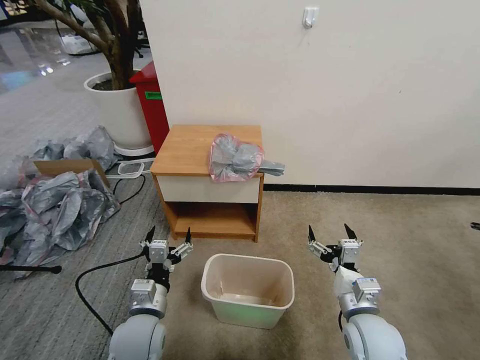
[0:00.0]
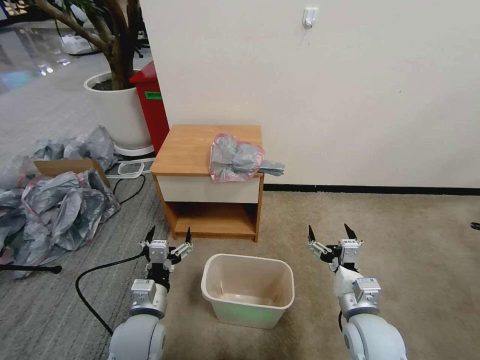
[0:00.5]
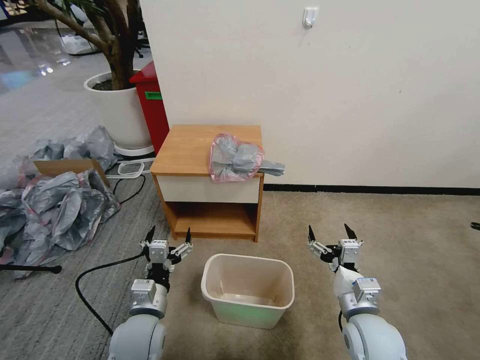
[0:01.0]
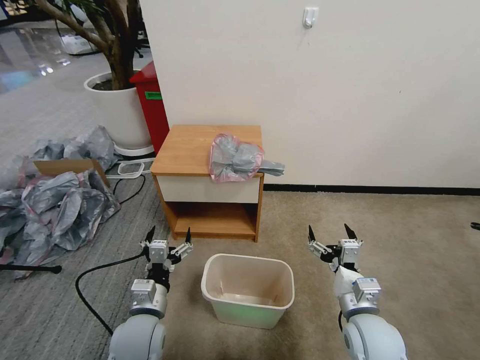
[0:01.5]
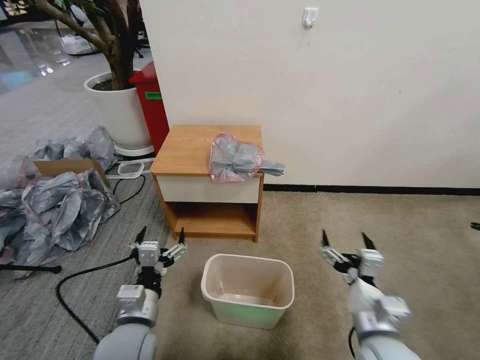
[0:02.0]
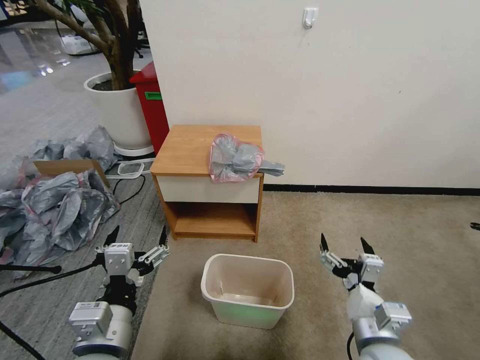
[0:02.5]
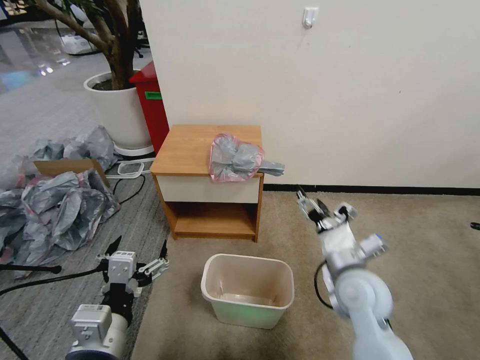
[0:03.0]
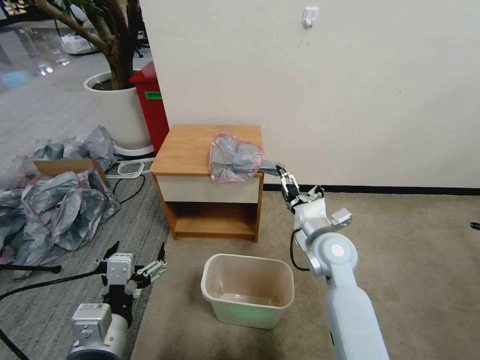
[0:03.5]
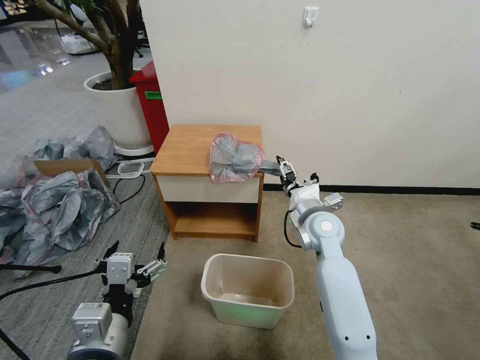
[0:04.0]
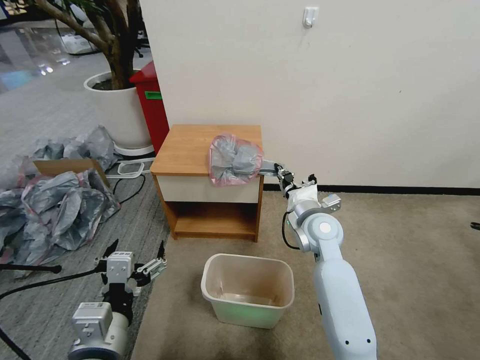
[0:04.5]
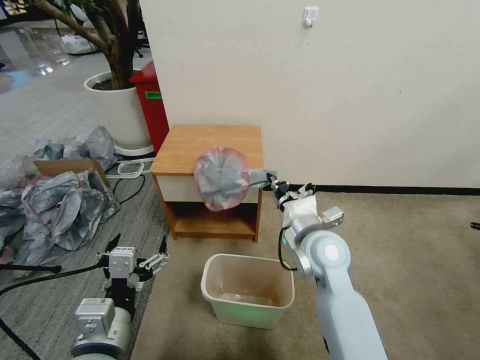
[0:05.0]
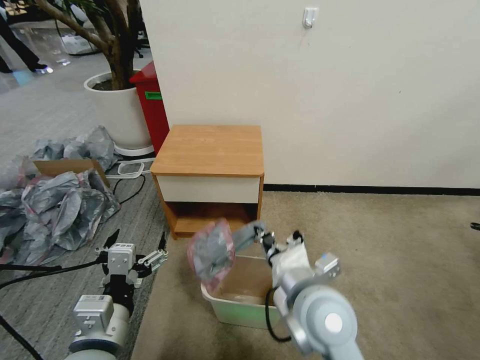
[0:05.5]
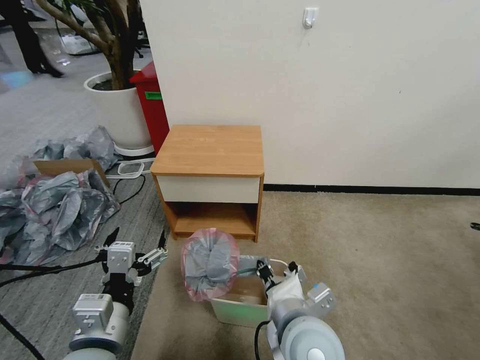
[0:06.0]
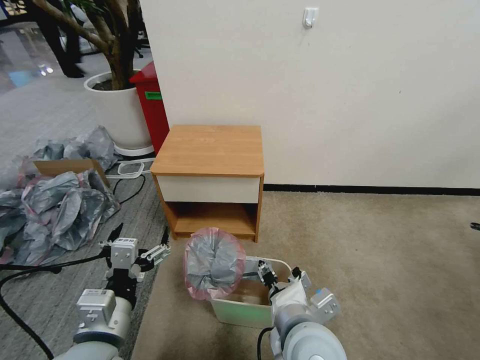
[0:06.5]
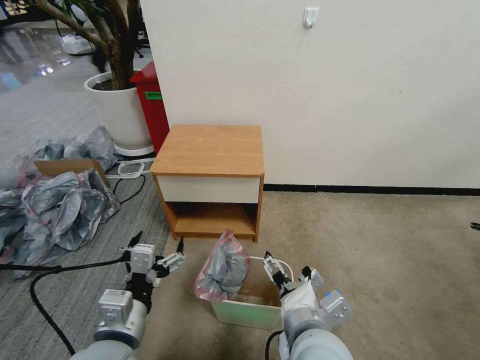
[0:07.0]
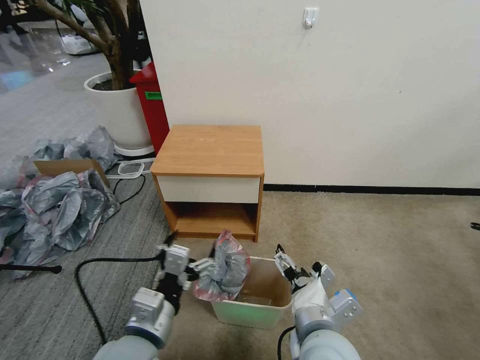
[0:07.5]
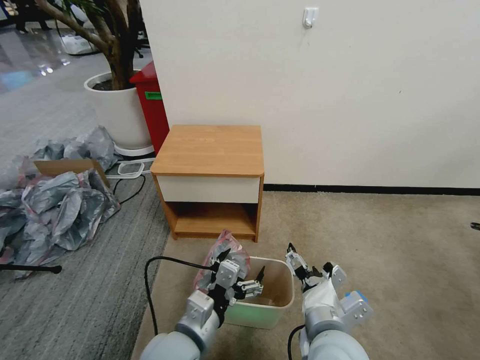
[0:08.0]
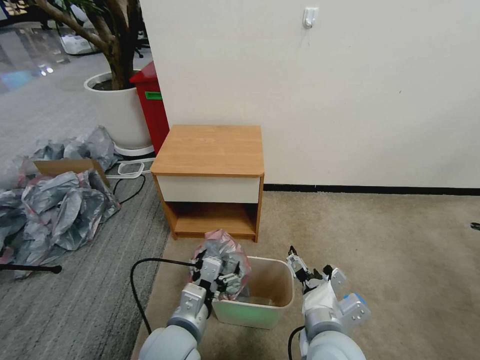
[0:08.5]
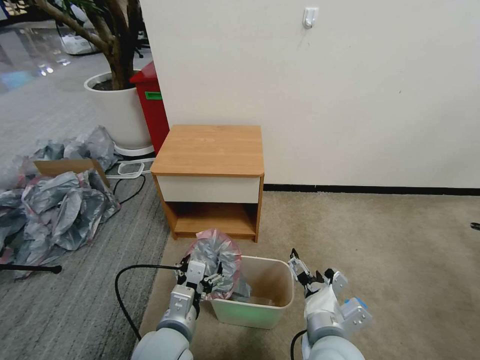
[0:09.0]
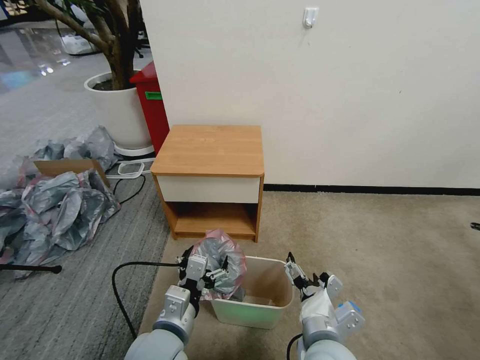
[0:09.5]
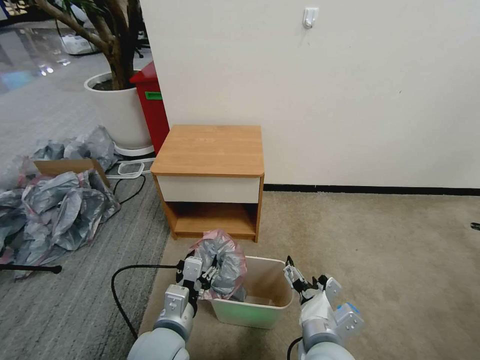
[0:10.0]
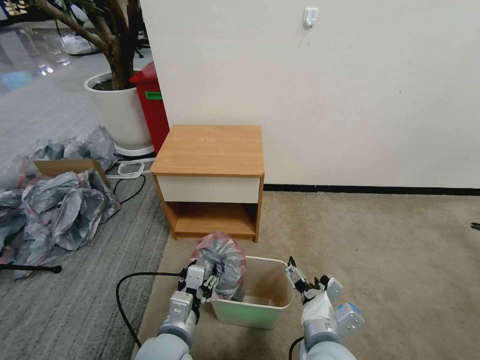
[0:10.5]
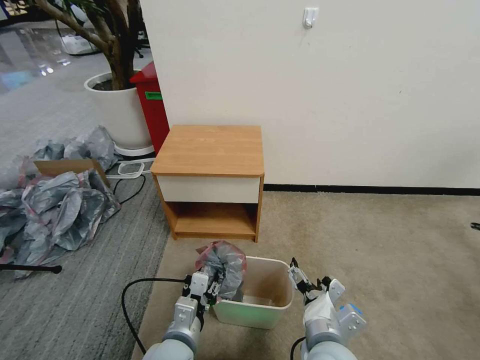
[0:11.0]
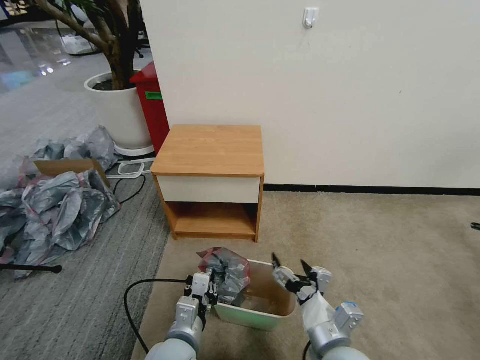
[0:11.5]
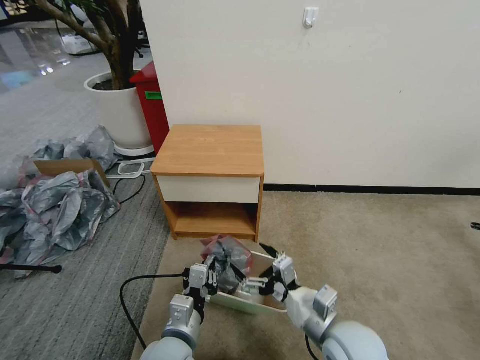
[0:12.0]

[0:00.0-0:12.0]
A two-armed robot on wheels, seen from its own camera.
Task of the whole recording: Pick up the garbage bag from the table and place it over the trash can.
0:02.0 to 0:04.0: The right gripper is displaced forward by some 25 cm; the left gripper travels upward and backward by some 10 cm.
0:04.0 to 0:06.0: The right gripper moves backward, approximately 25 cm, and closes up.
0:06.0 to 0:08.0: The left gripper goes some 10 cm to the right and downward. The right gripper heads to the right, covering roughly 5 cm, and opens up.
0:08.0 to 0:10.0: The left gripper closes its fingers.
0:10.0 to 0:12.0: The right gripper moves about 5 cm; the left gripper closes.

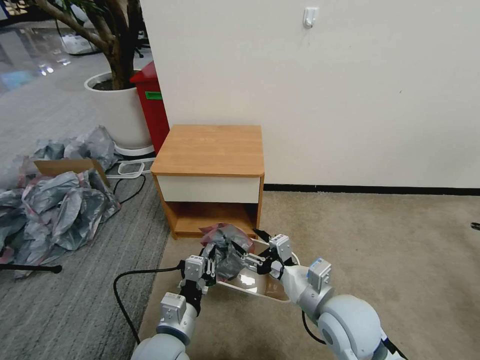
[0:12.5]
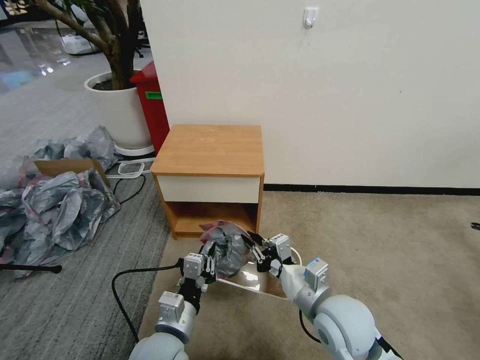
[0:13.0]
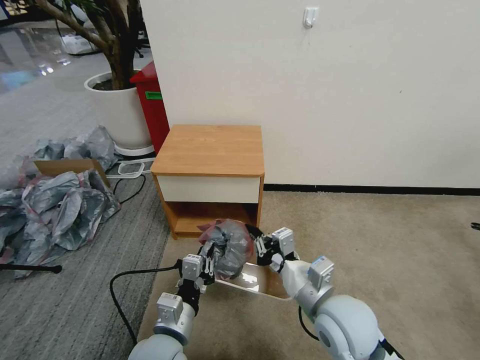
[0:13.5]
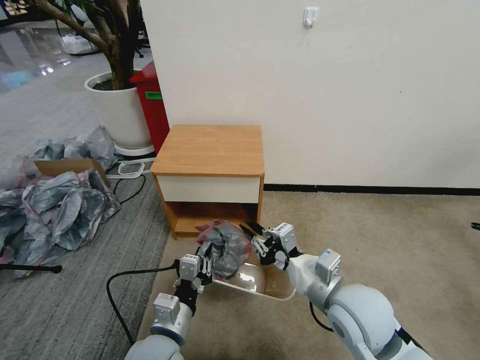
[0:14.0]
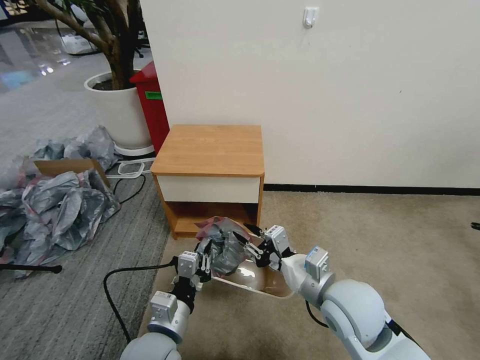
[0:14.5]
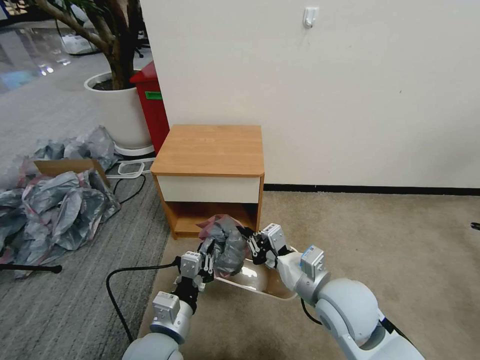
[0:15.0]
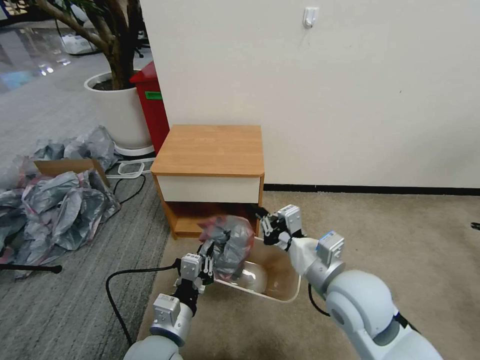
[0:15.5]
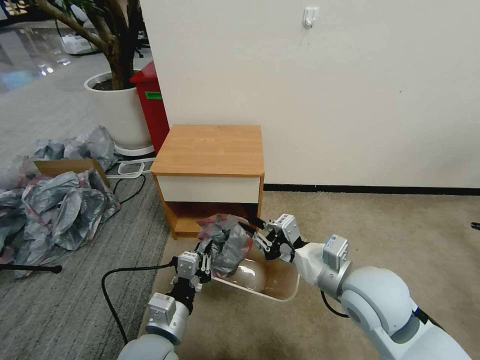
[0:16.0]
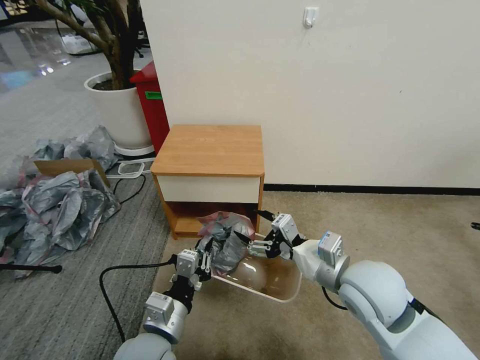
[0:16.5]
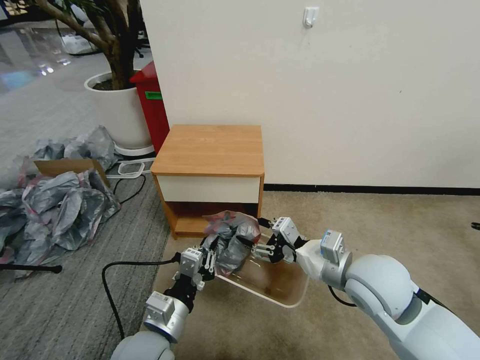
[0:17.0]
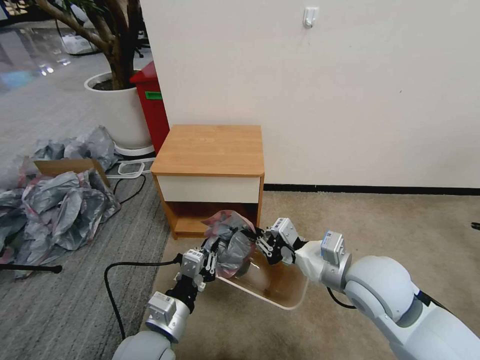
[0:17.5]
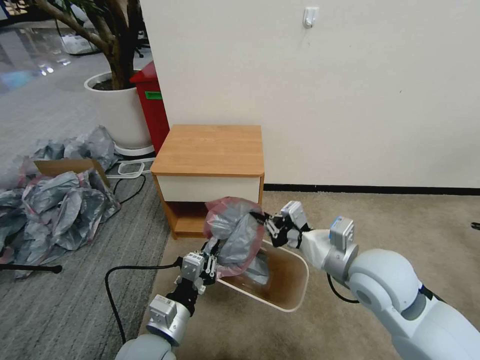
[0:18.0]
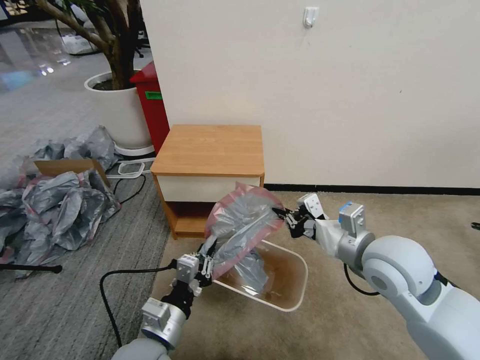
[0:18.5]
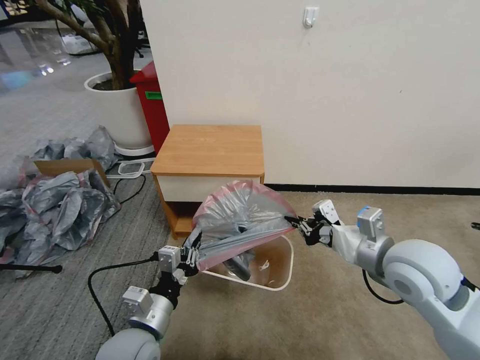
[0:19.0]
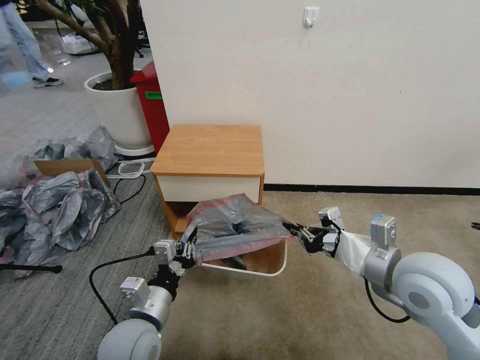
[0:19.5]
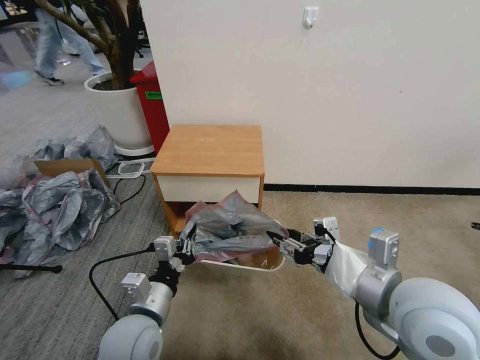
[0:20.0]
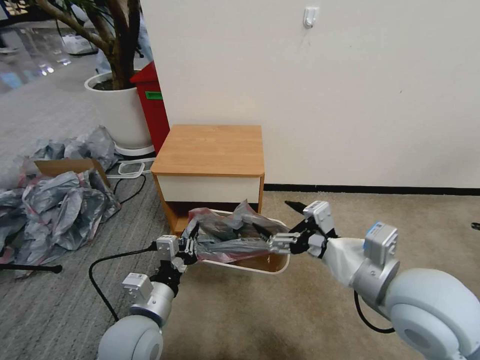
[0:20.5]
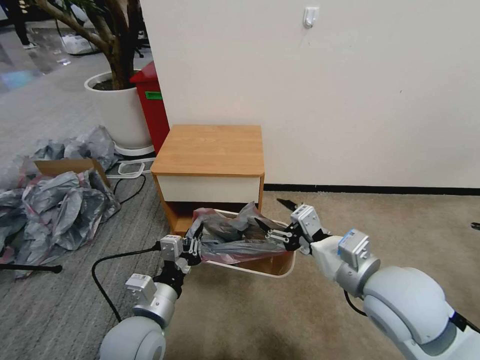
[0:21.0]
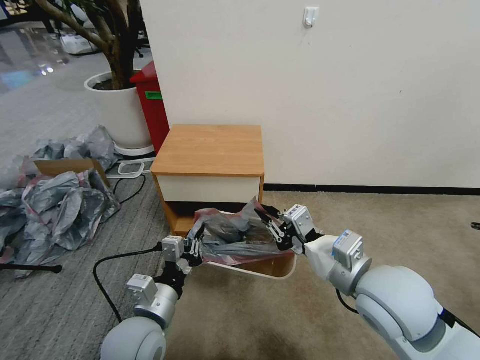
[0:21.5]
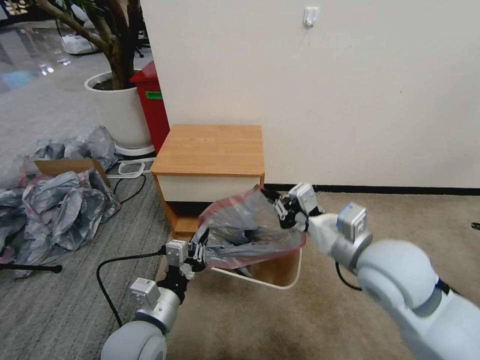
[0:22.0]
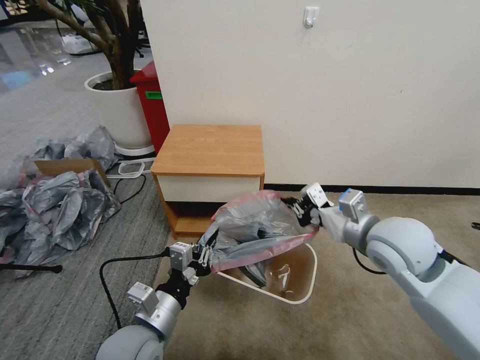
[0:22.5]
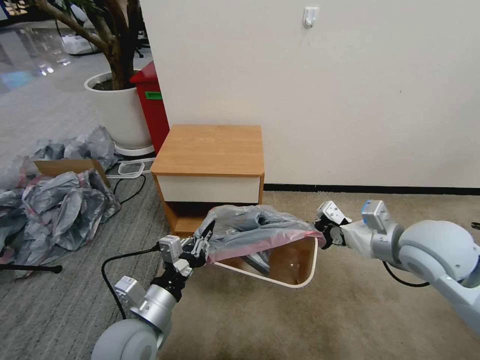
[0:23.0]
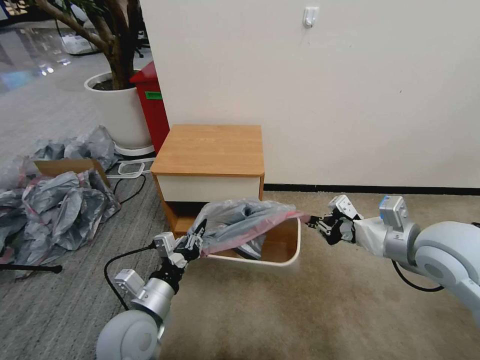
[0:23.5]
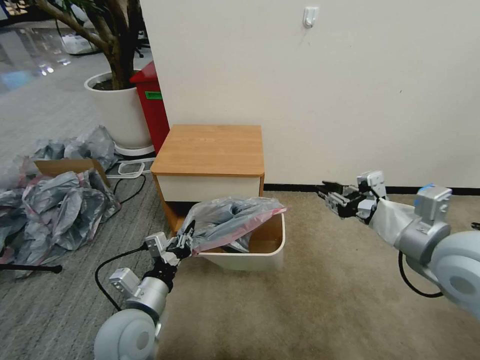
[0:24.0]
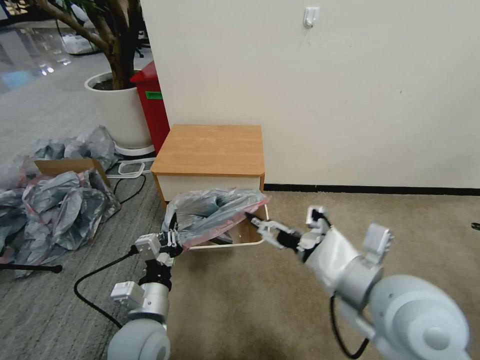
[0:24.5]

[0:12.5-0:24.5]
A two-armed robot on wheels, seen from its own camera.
Task of the whole recording: Pick up the garbage bag from the table and place it over the trash can.
0:12.5 to 0:14.5: The right gripper closes its fingers.
0:14.5 to 0:16.5: The right gripper shifts by approximately 5 cm, and opens its fingers.
0:16.5 to 0:18.5: The right gripper ends up approximately 5 cm from where it was, and closes up.
0:18.5 to 0:20.5: The right gripper shifts some 10 cm backward, and opens up.
0:20.5 to 0:22.5: The right gripper travels forward by some 10 cm, and closes up.
0:22.5 to 0:24.5: The right gripper travels backward by about 10 cm, and opens its fingers.

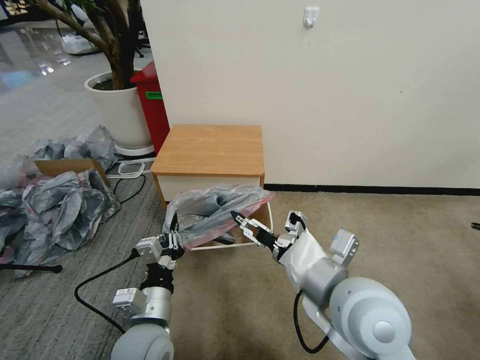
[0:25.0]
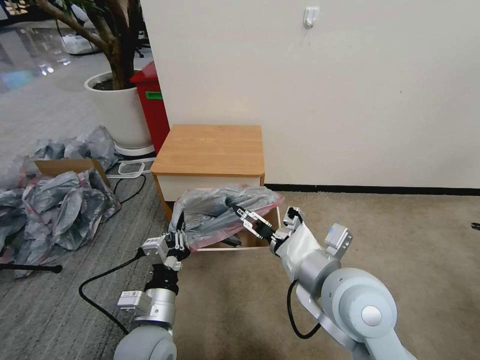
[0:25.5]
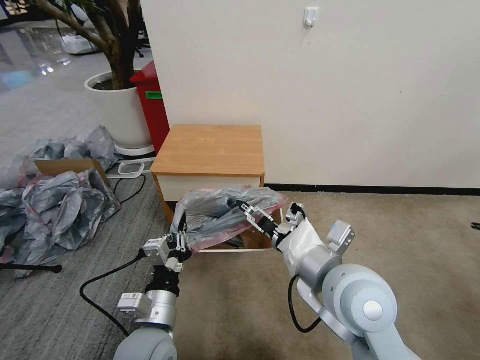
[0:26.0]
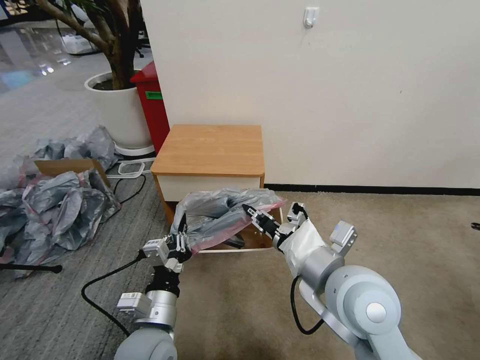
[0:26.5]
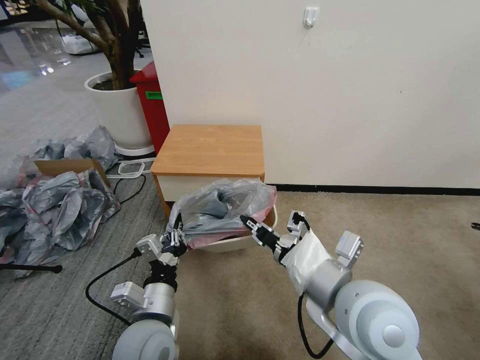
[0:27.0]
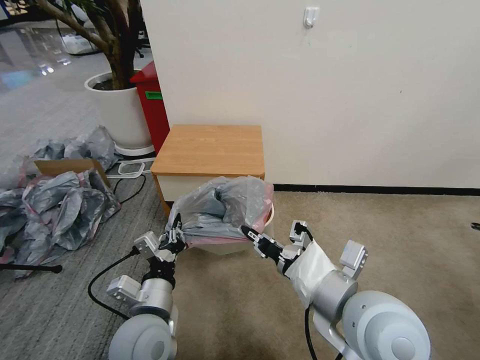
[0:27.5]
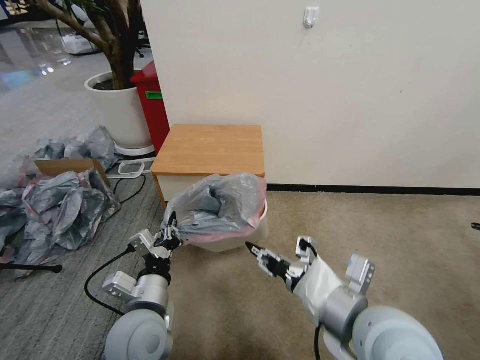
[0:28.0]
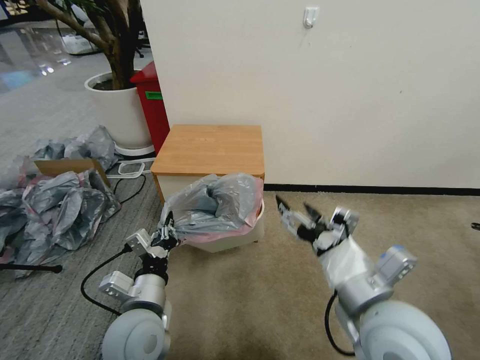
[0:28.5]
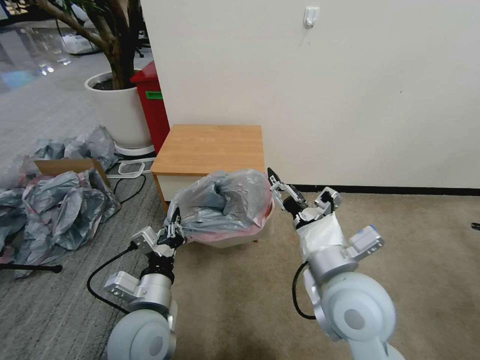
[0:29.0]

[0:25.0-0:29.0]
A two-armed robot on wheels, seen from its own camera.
Task of the whole recording: Pick up the garbage bag from the table and place it over the trash can.
0:25.0 to 0:27.0: The right gripper closes its fingers.
0:27.0 to 0:29.0: The right gripper opens its fingers.
